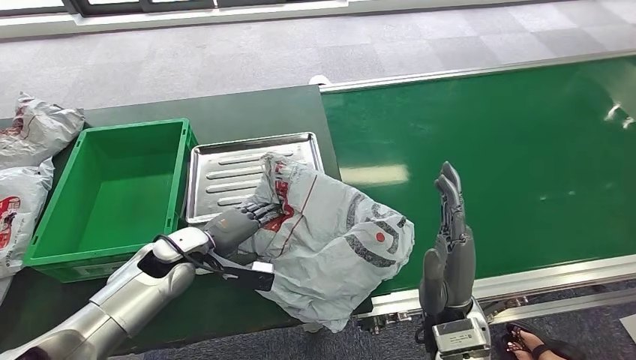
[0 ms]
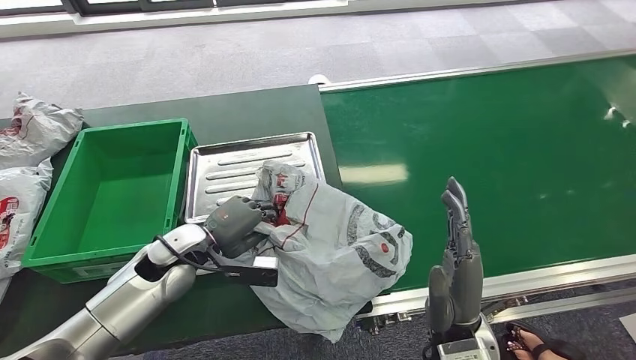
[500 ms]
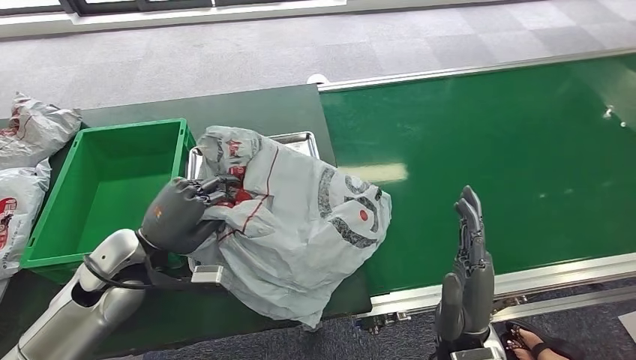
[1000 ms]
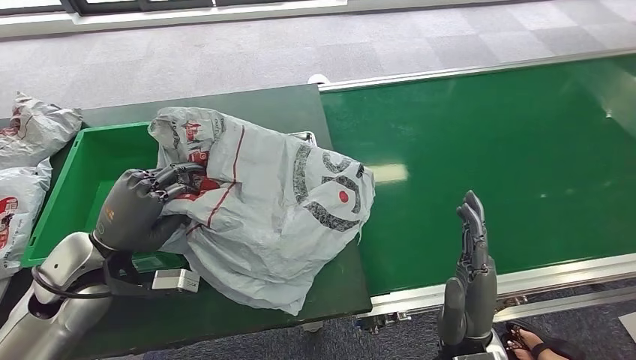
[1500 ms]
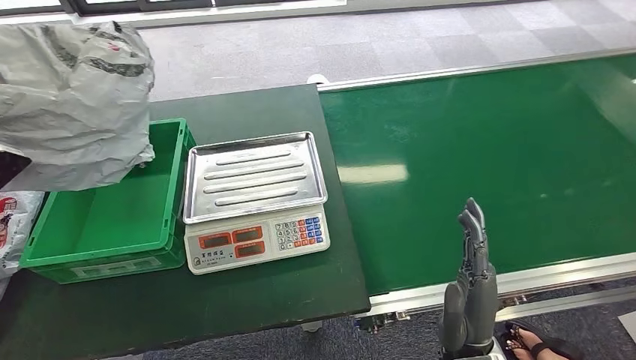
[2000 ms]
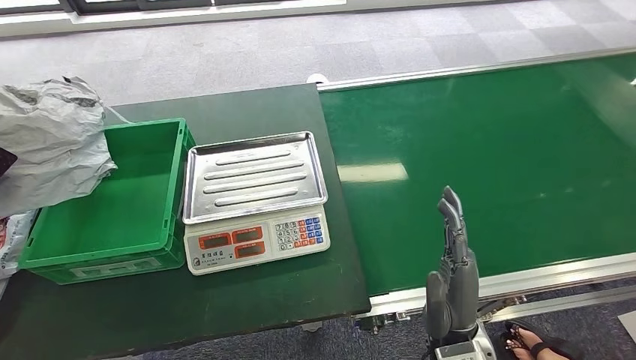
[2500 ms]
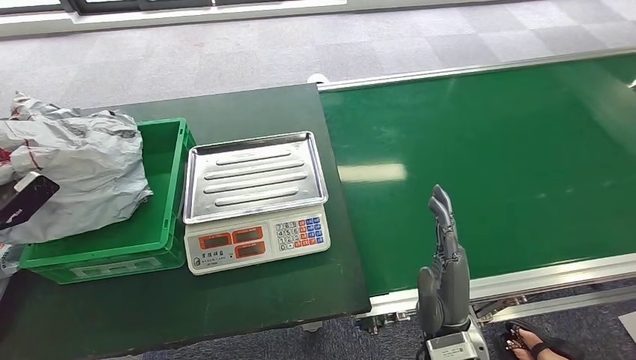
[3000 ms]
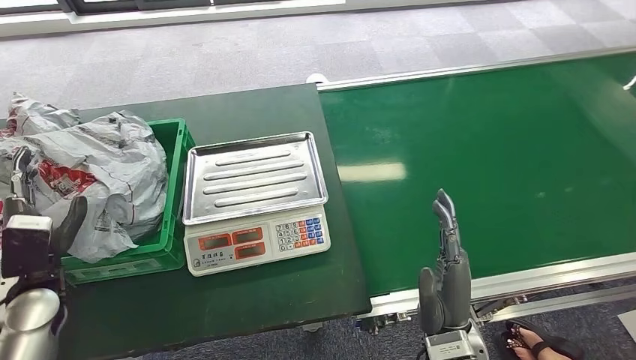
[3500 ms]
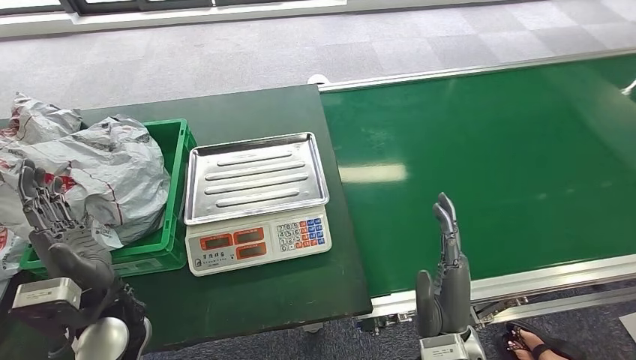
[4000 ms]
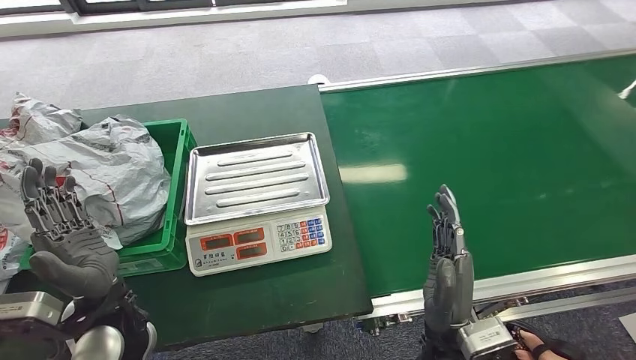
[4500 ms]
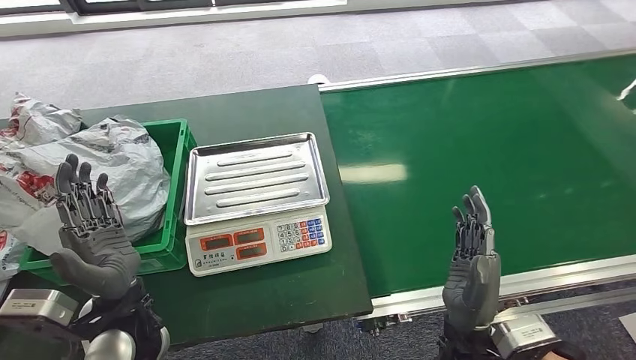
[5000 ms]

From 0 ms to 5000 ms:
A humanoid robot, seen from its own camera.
Step, from 0 ms to 1500 ms: Pick up the package from the inbound machine.
Step, from 2000 ms to 5000 ms: Place the package into the parcel locker.
From 2500 ms to 5000 ms: The left hand heads to the right, covering about 35 cm.
